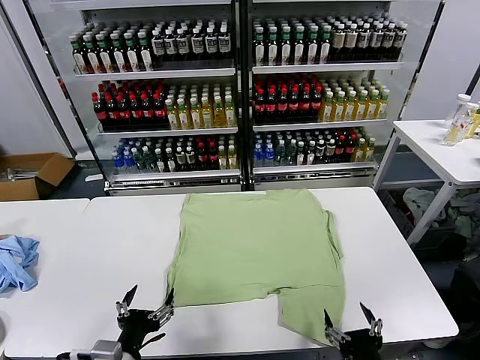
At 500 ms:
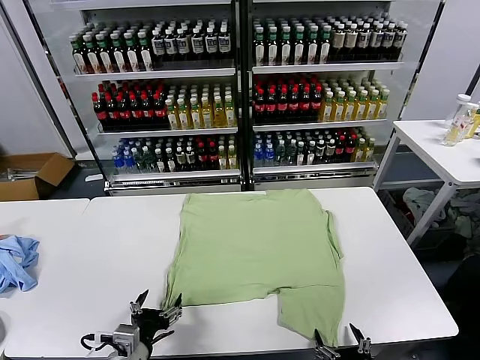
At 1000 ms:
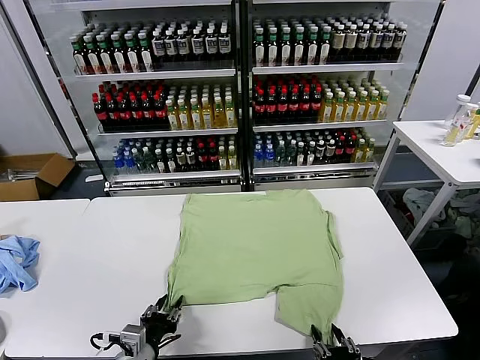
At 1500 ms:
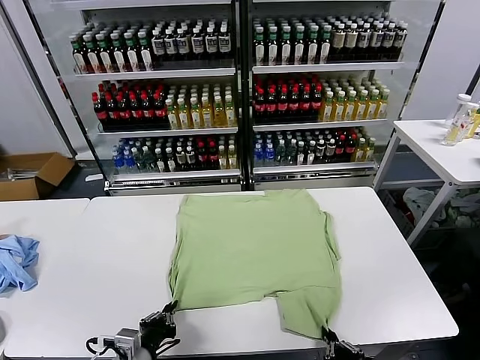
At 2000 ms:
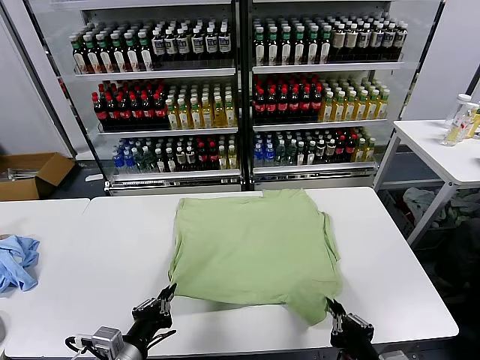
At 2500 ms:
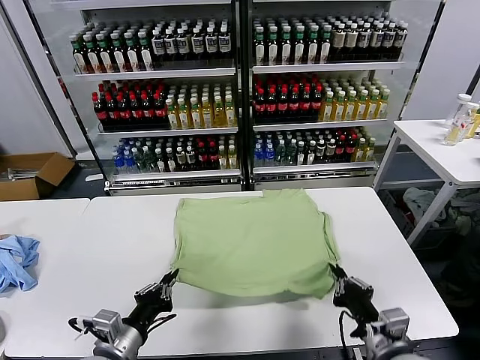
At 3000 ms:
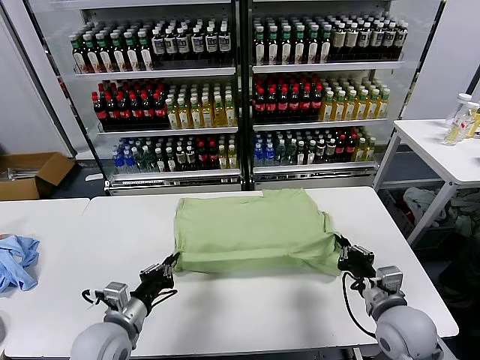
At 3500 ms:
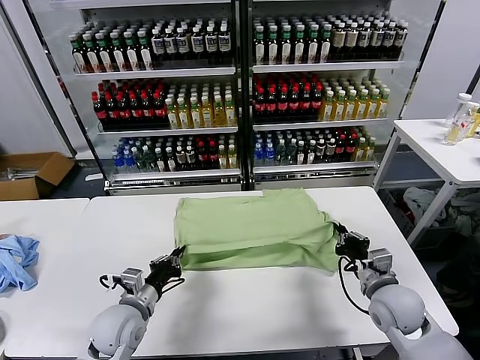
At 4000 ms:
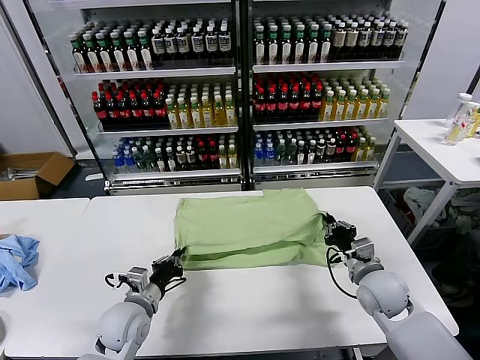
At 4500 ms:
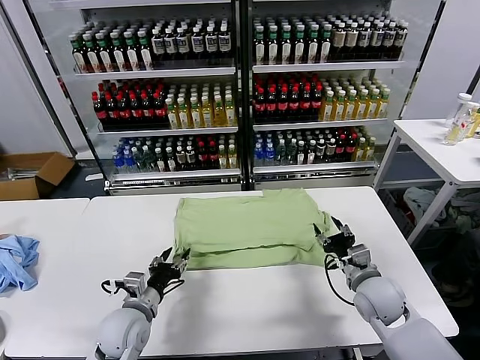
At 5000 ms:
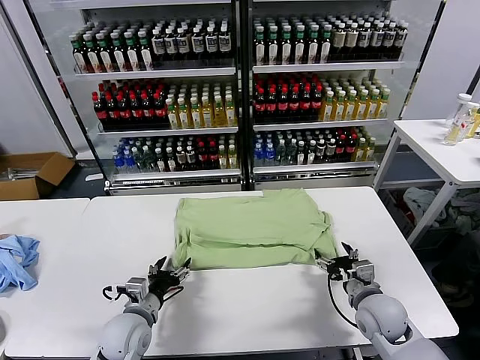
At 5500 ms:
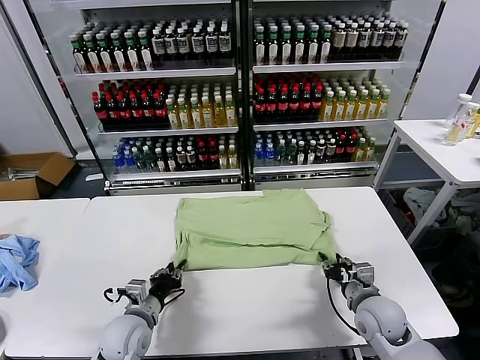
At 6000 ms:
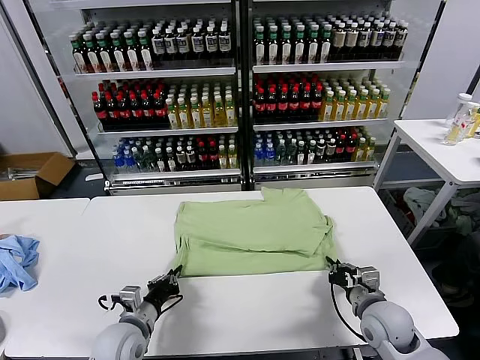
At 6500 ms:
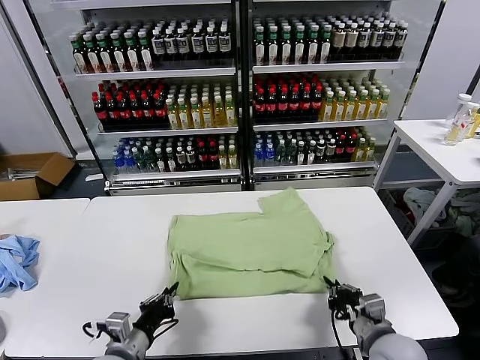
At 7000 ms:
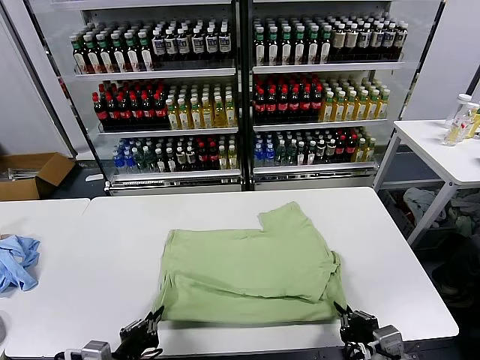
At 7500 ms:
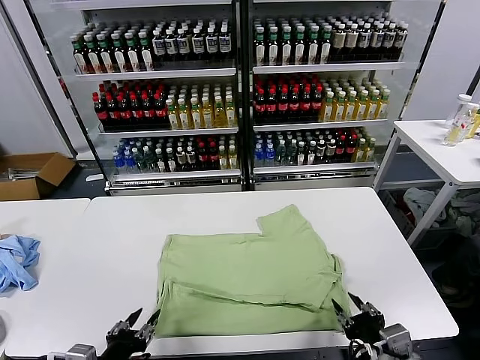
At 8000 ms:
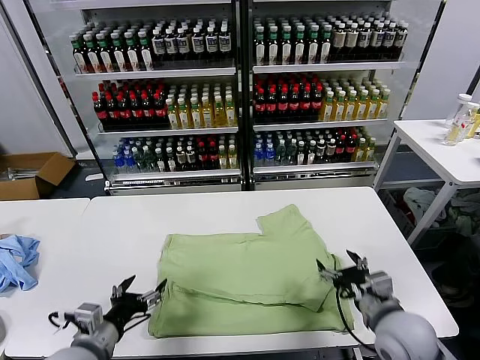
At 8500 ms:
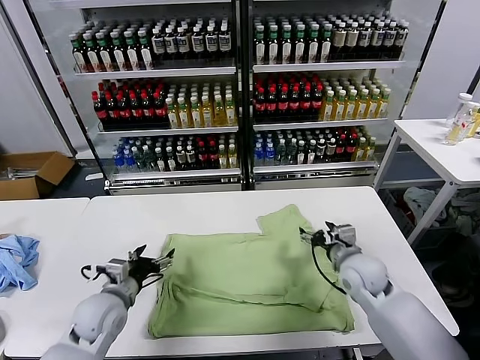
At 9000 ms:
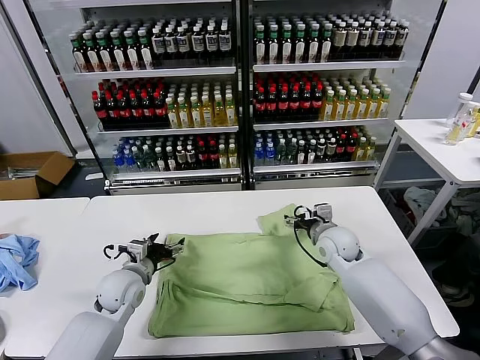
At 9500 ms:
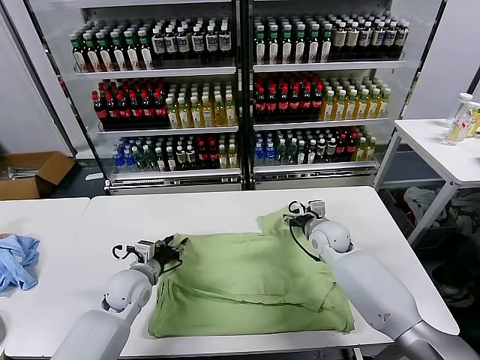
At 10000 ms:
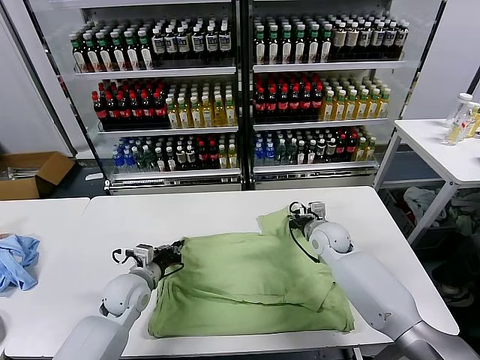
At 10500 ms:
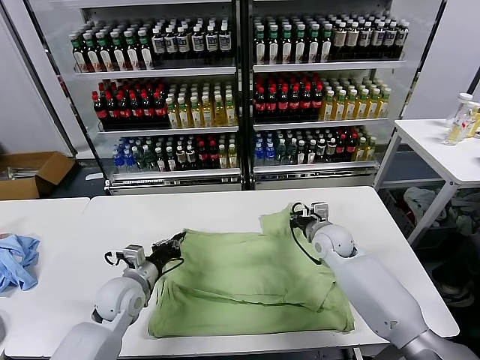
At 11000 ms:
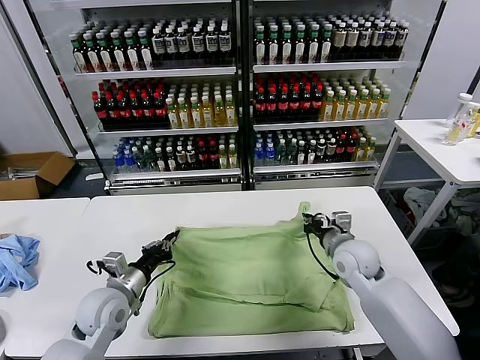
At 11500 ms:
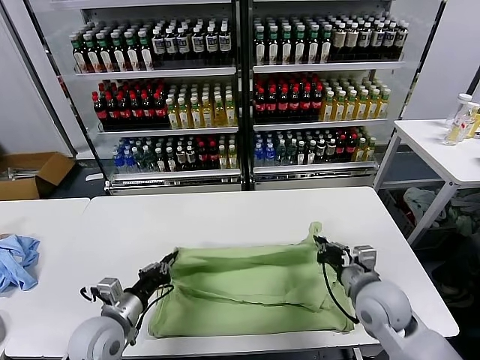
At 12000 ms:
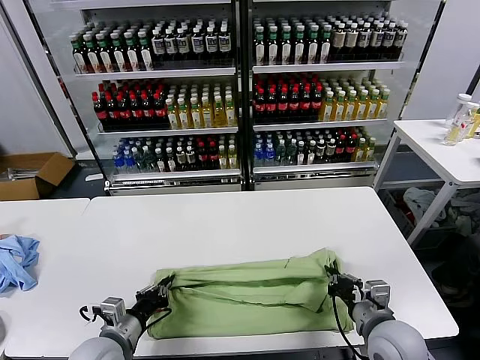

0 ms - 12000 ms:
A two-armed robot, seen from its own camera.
Task of the whole recording: fold and organize the clothes.
Step, 0 ms - 1500 ms: use both grippers simultaneously to clamp the lower edge of the clothing fabric.
Step, 2000 ms - 4500 ms: use both grippers to drag the lower edge of the fabric forward and fold it over the upper edge.
Step, 5000 ms - 7500 ms: Drag the clothes downward with both gripper.
Step, 8000 ms - 9500 ms: use both grippers simultaneously to clamp the upper edge of the clothing fabric.
2000 ms - 4000 ms: The right gripper is displaced forward by approximately 25 cm; the left gripper is displaced forward and downward by roughly 15 cm.
4000 ms - 6000 ms: The right gripper travels backward by about 5 cm, and opens and closes again. The left gripper opens and closes again.
6000 ms - 8000 ms: The left gripper moves backward and upward, roughly 10 cm, and opens its fingers; the right gripper shifts roughly 5 cm upward, travels backward and back again, roughly 15 cm each way, and opens up.
8000 ms - 10000 ms: Both grippers travel together forward, approximately 20 cm. The right gripper closes up; the left gripper closes its fingers.
10000 ms - 12000 ms: The right gripper is displaced backward by roughly 25 cm; the left gripper moves backward, roughly 15 cm.

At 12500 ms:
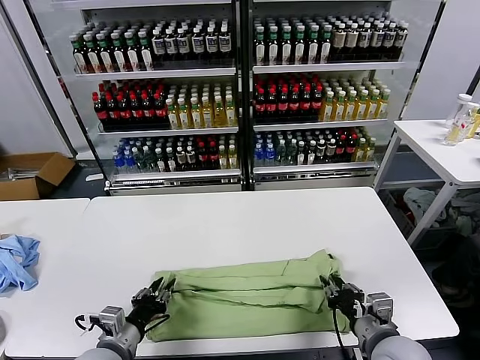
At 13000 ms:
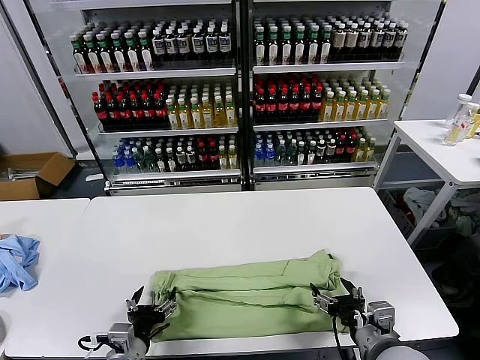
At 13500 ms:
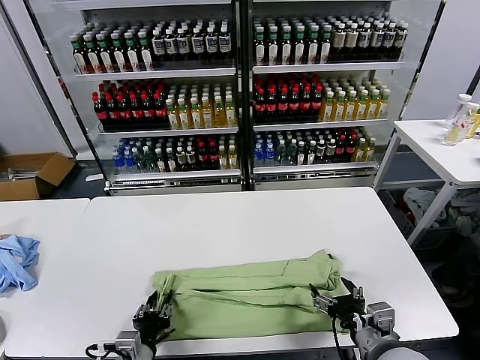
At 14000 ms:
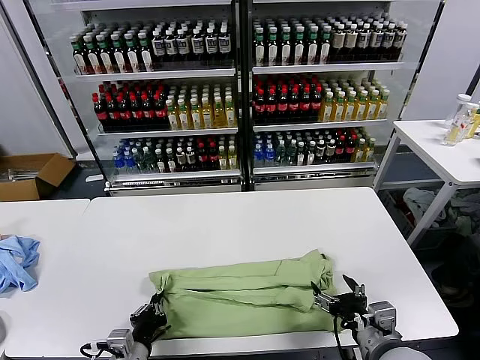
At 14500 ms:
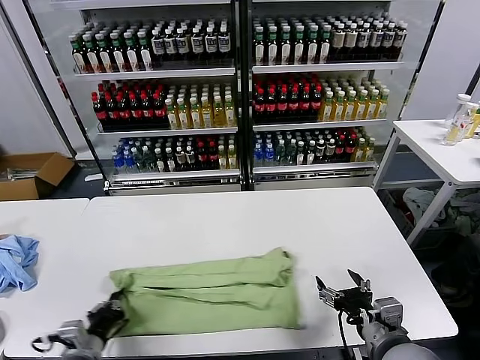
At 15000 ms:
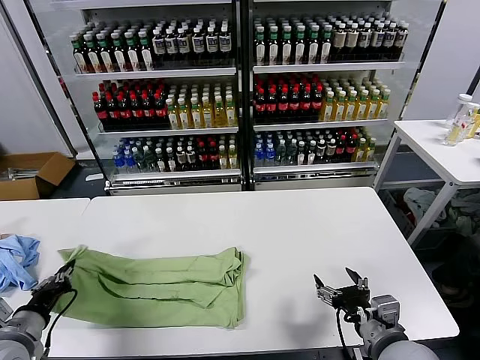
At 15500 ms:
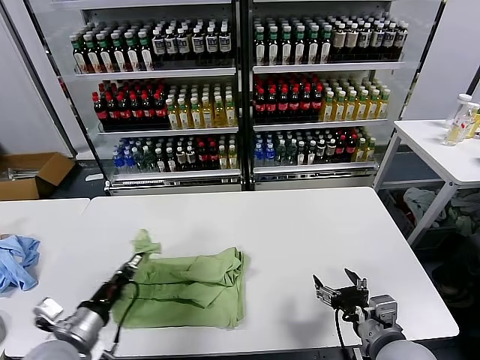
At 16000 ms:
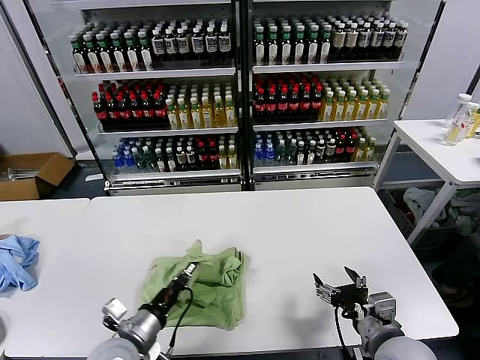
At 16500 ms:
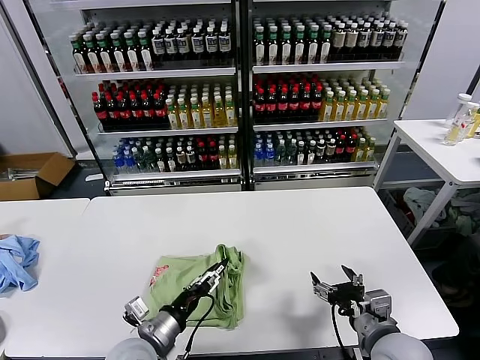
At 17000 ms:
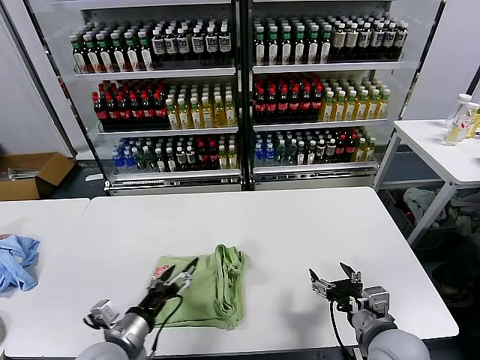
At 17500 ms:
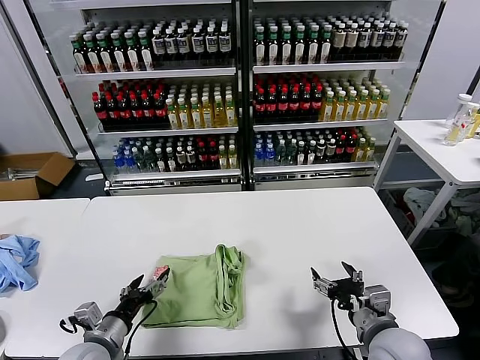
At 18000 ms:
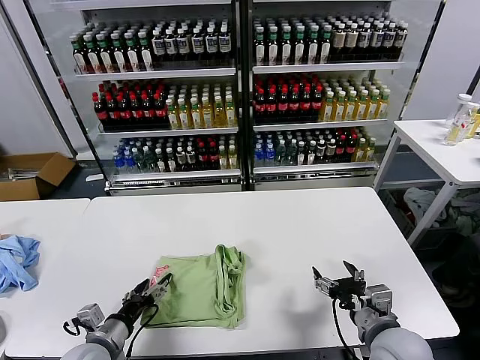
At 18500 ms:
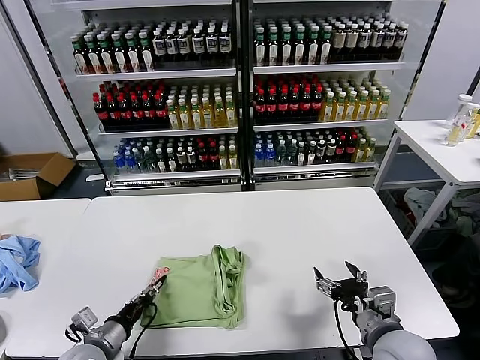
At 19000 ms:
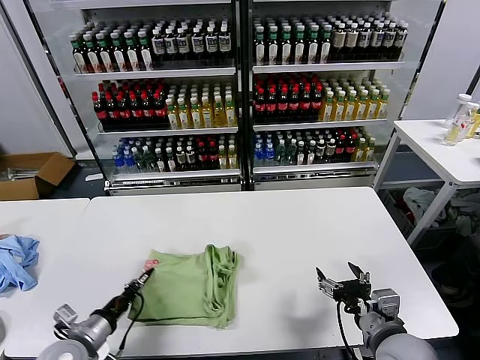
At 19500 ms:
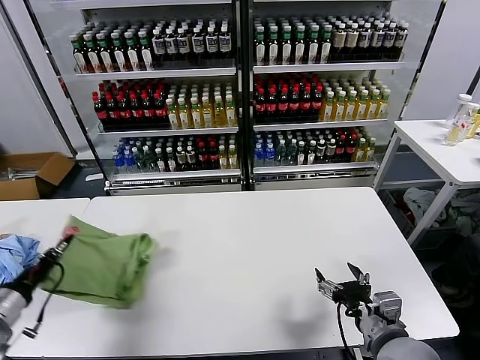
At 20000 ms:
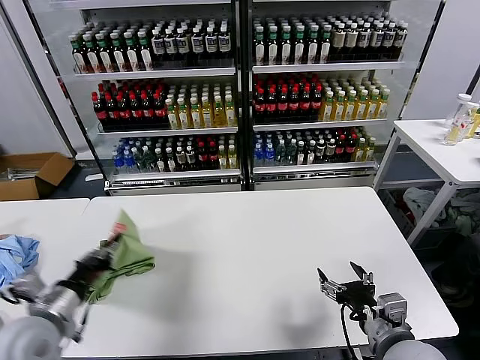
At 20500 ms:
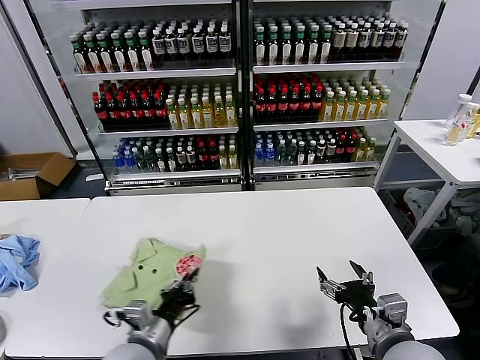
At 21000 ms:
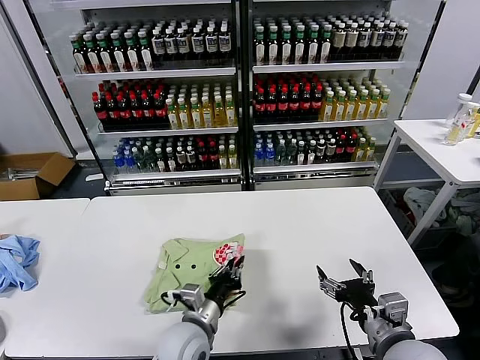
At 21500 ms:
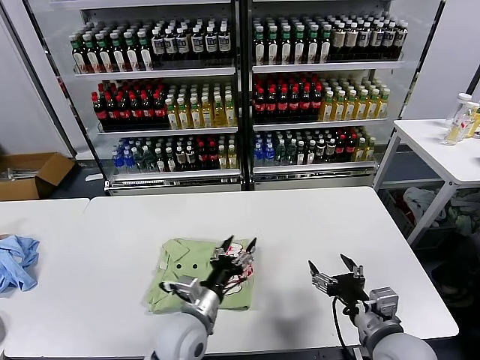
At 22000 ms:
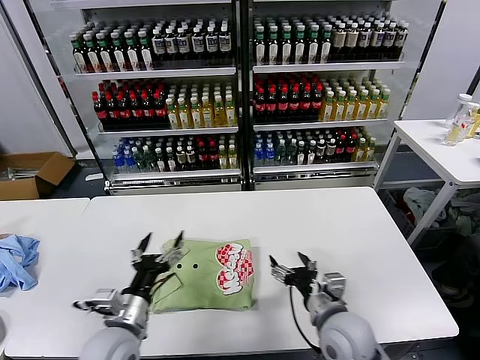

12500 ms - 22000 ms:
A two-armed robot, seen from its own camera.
Task of the whole recording: fold and organize the clothes.
Step, 13000 ms - 13500 ms: use the left gripper to clamp the left edge of the fabric.
Step, 14000 ms - 16500 ms: use the left gripper to drag the left edge of the fabric to the left and folds it over the right edge.
Step, 17000 ms - 21000 ms: Flip the folded clothes over with left gripper.
12500 ms - 14500 ms: The right gripper opens up, while the left gripper goes roughly 5 cm to the left, and closes.
14500 ms - 16500 ms: The left gripper shifts roughly 10 cm to the right, and opens its fingers.
16500 ms - 18000 ms: The left gripper goes some 10 cm to the left, and opens up.
18000 ms - 20000 ms: The left gripper goes approximately 15 cm upward and to the left, and closes its fingers.
20000 ms - 22000 ms: The right gripper goes about 10 cm to the left and forward; the left gripper shifts about 15 cm to the right and downward, and opens up.

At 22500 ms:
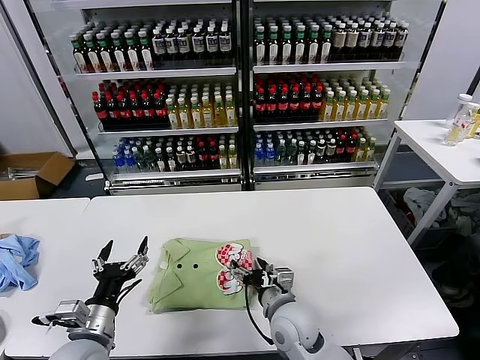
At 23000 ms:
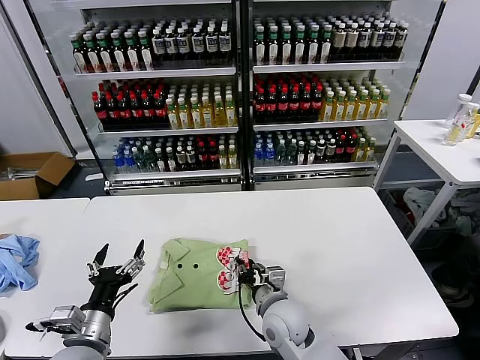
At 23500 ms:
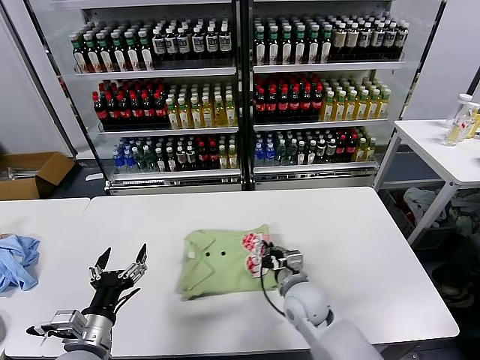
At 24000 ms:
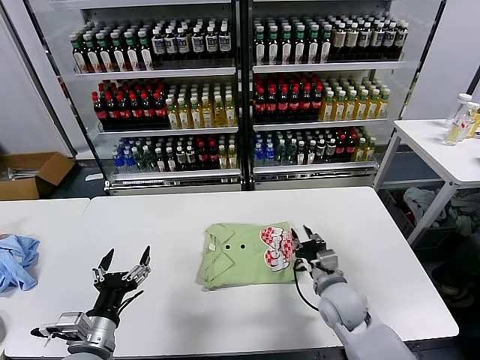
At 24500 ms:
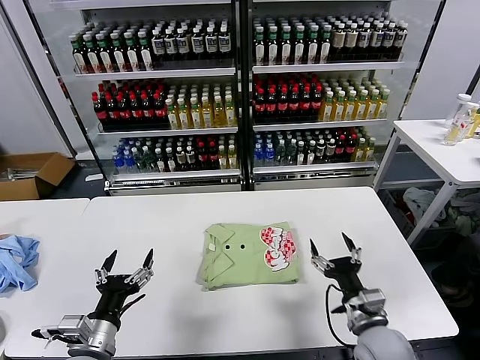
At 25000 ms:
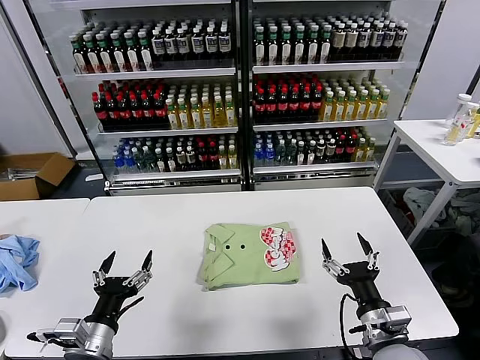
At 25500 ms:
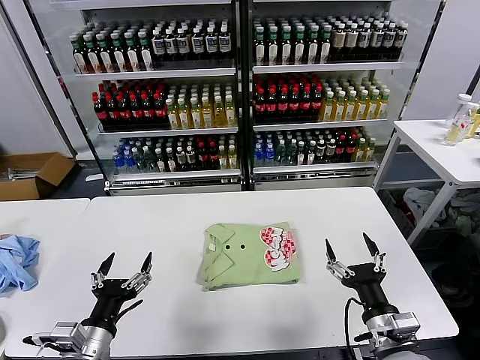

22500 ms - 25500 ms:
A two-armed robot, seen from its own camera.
Task of the whole recording: fold and organize the clothes.
22500 ms - 24000 ms: The right gripper goes some 10 cm to the right, and closes up.
24000 ms - 25500 ms: The right gripper goes approximately 15 cm backward, and opens.
